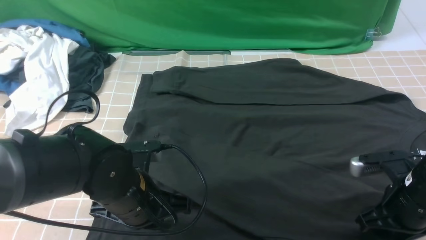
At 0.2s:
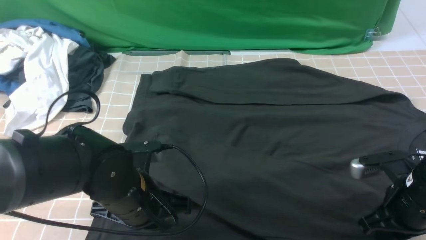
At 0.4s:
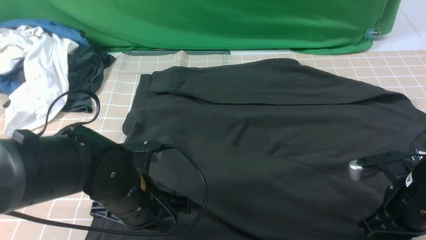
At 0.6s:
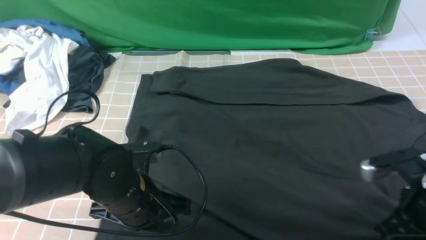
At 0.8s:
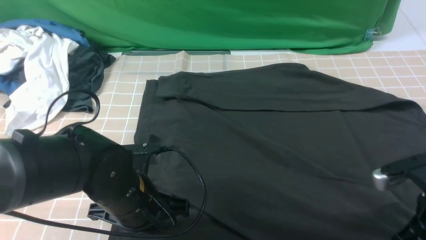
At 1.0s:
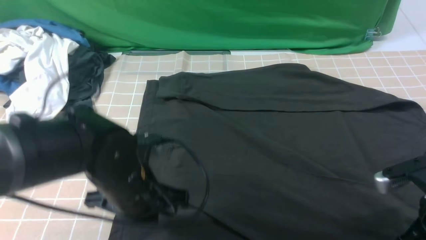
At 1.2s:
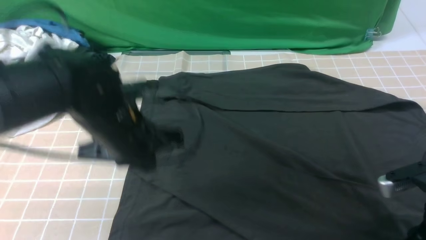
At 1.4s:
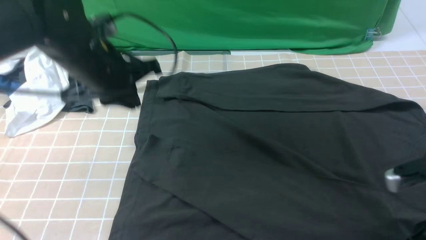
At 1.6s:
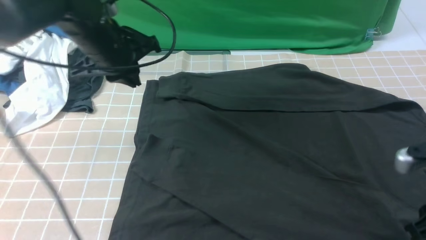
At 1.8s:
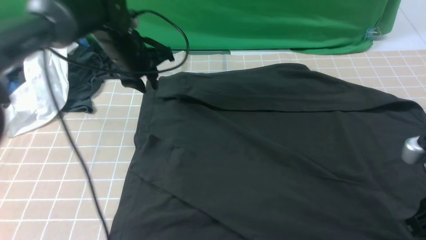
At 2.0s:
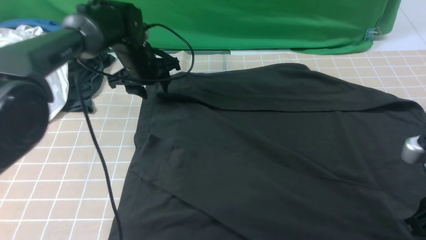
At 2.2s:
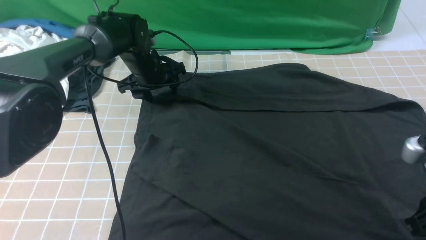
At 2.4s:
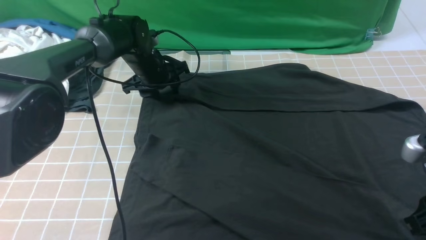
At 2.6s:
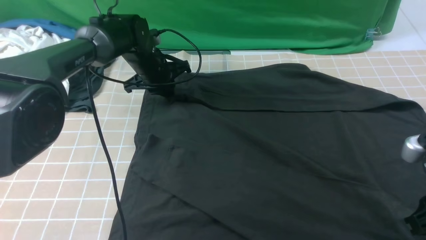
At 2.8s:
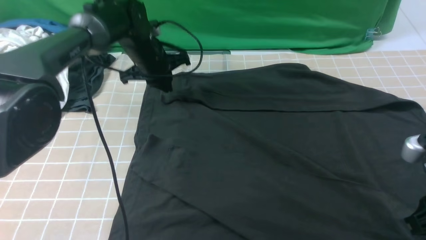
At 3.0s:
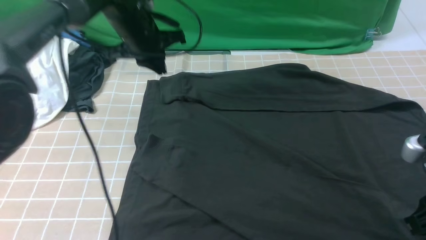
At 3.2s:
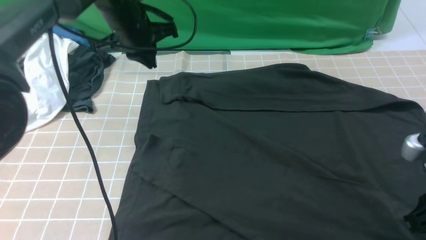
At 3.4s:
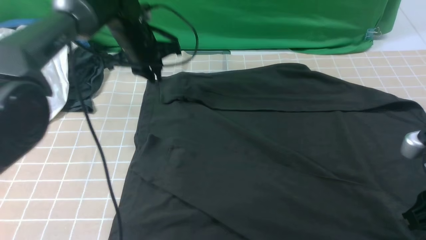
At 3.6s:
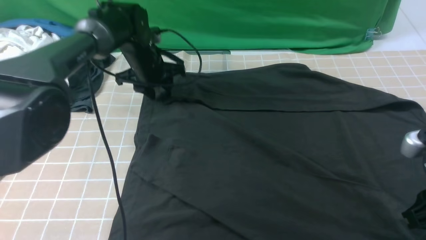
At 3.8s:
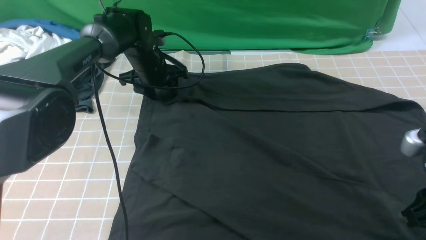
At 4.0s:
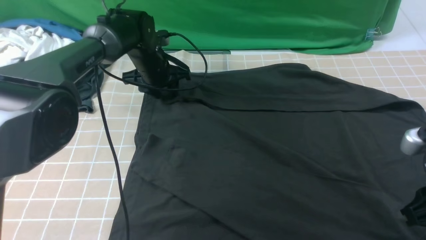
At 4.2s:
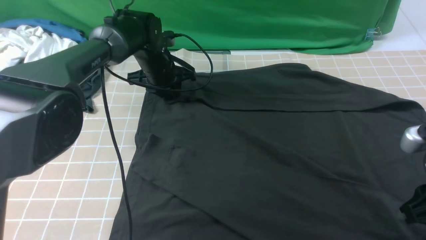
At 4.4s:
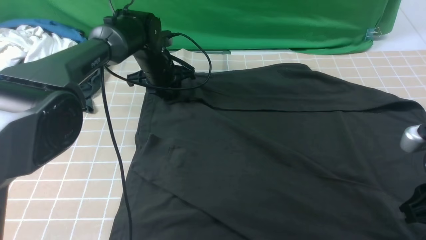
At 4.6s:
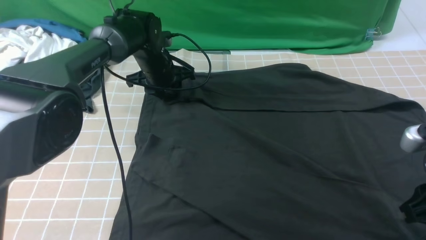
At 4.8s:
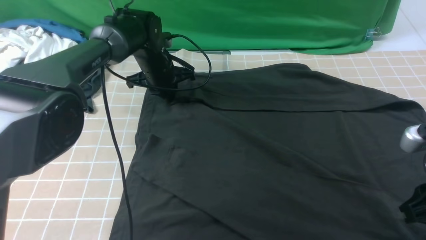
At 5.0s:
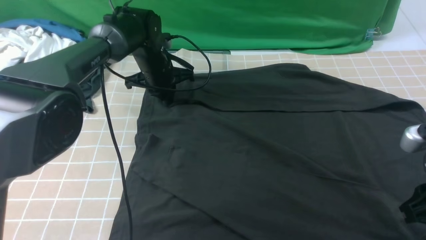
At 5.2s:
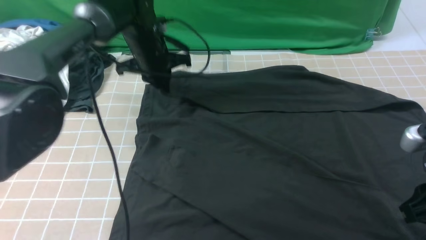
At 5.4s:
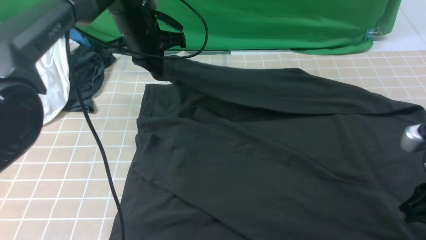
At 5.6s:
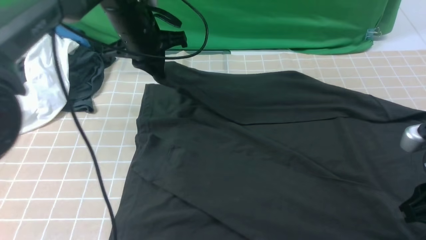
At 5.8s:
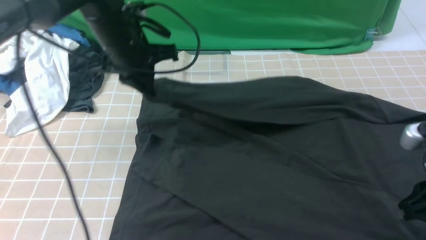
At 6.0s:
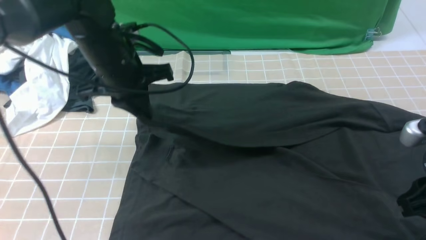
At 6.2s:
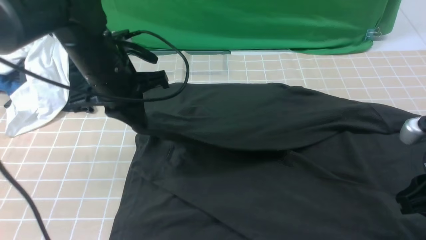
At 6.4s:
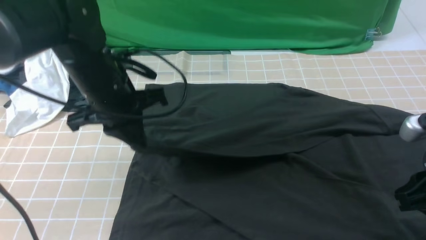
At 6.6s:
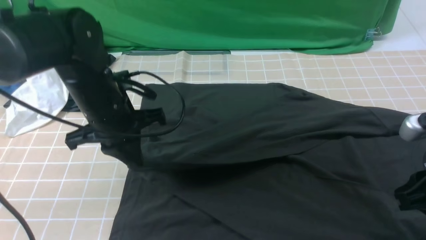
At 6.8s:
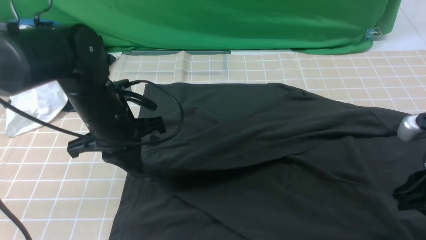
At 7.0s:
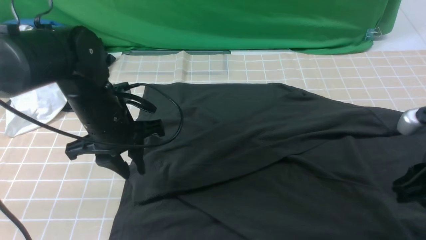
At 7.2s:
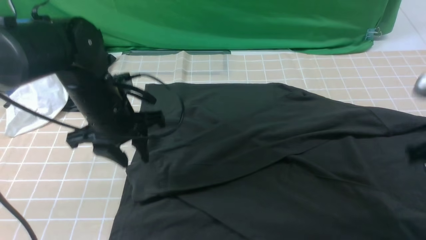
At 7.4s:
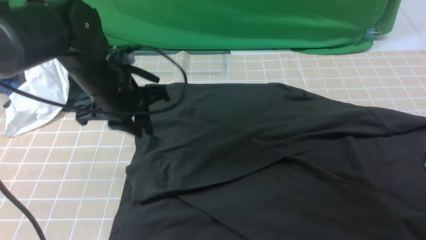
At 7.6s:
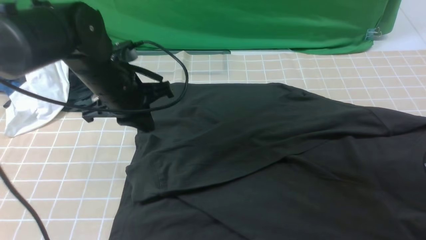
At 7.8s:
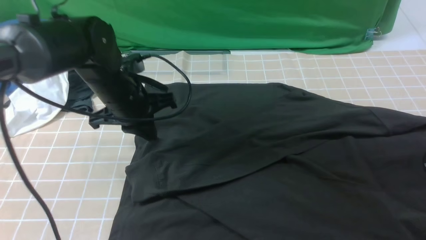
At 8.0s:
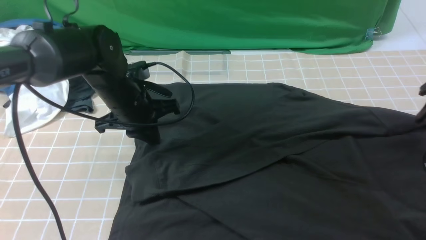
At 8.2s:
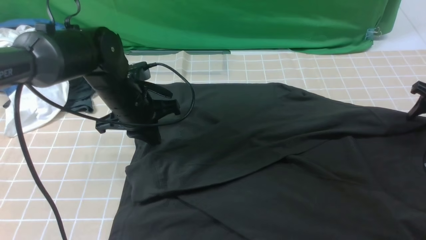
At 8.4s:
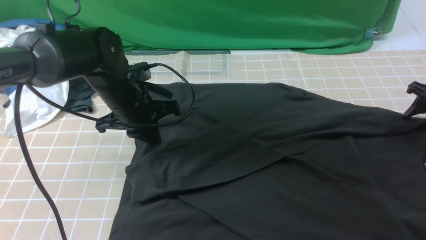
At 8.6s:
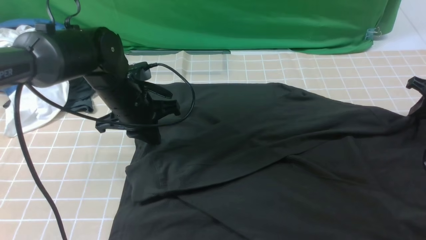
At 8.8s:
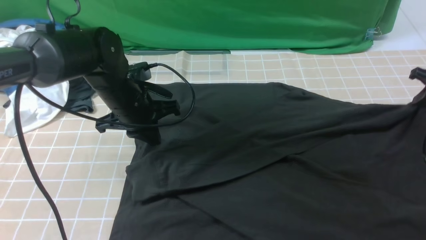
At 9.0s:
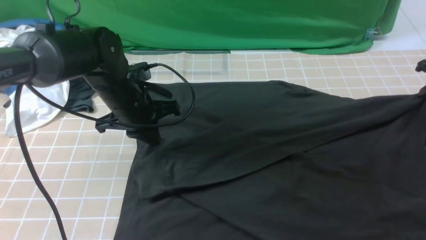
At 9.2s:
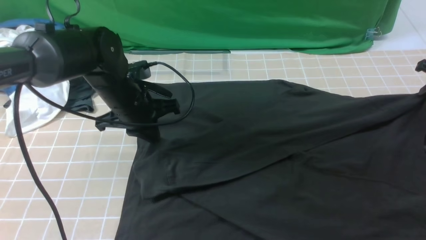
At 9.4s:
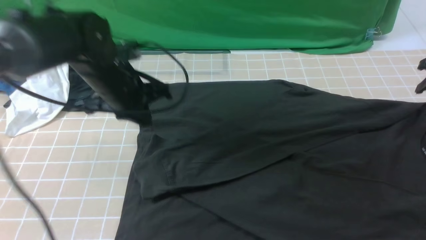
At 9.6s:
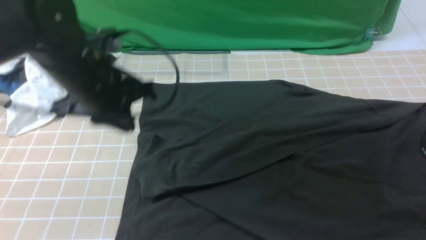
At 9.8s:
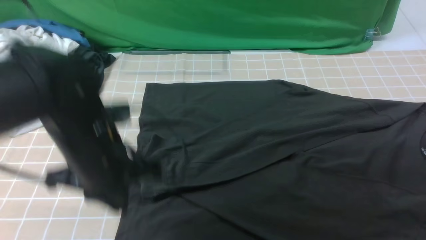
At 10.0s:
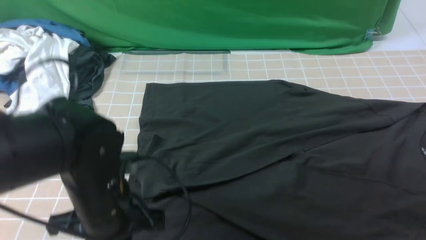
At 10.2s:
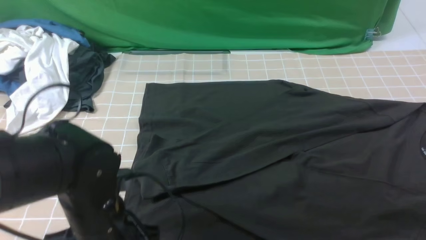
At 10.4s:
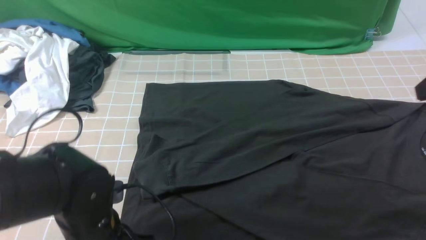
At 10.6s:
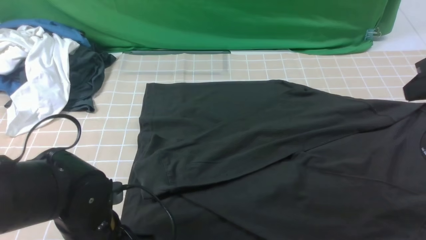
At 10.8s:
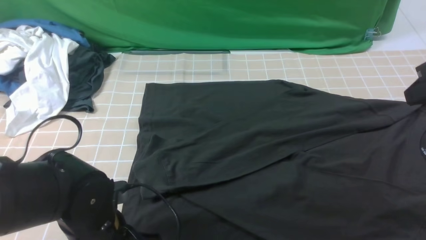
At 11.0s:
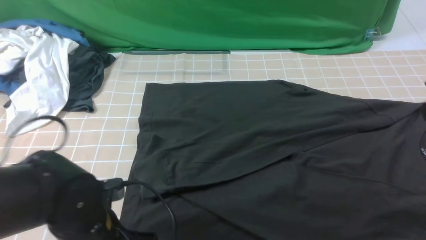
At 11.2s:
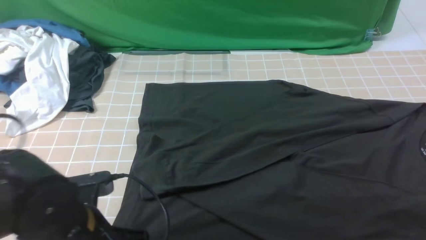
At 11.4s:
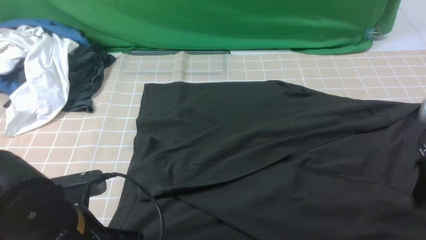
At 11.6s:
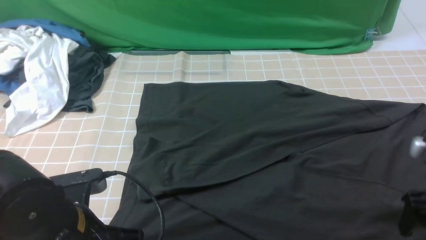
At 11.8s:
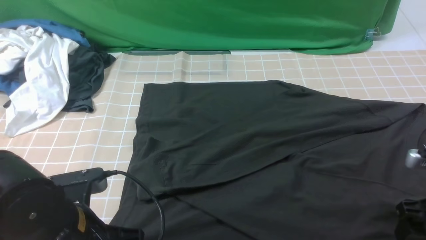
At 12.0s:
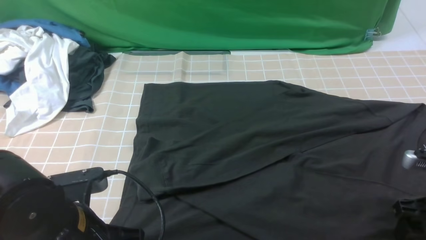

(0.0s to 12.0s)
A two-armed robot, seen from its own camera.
Step, 0.0s - 4.8s: use the left arm to clamp the cuff farthest from it.
Step, 5.0s - 6.8s: use the left arm to drag and drop the cuff onto the cuff closest to the left arm.
0.0s - 1.6s: The left gripper goes approximately 20 cm forward and upward, while the right gripper travels upward by some 10 cm, and closes, then opens again.
1.6s - 3.0s: The left gripper goes roughly 5 cm forward, moves about 10 cm downward and comes back, and opens and closes again.
3.0s - 4.4s: The left gripper travels downward by about 10 cm, and opens up.
4.4s - 6.0s: The left gripper goes approximately 20 cm backward and upward, and closes up.
6.0s - 7.6s: The left gripper opens, then closes once more, while the right gripper is displaced forward and to the right by some 20 cm.
7.6s - 9.0s: The right gripper heads forward, downward and to the right, covering roughly 15 cm, and opens and closes again.
9.0s - 10.4s: The left gripper goes approximately 20 cm backward, and opens. The right gripper moves upward, backward and to the left, roughly 25 cm.
10.4s - 12.0s: The right gripper is displaced downward by some 20 cm, and opens up; the left gripper shifts by about 5 cm, and closes its fingers.

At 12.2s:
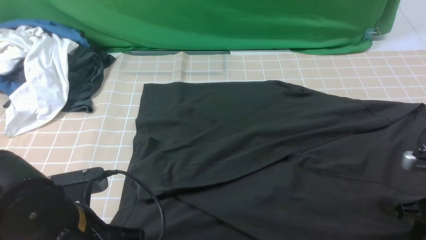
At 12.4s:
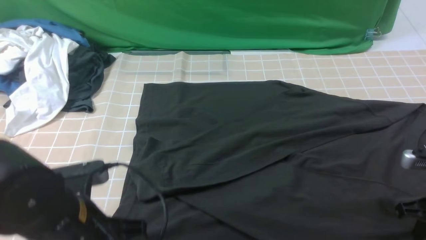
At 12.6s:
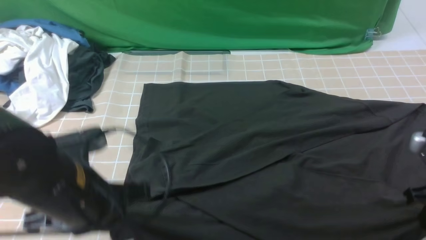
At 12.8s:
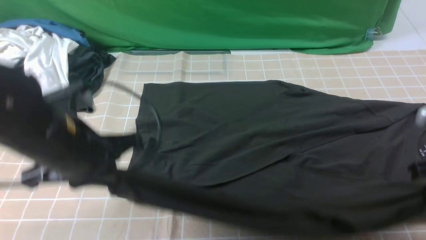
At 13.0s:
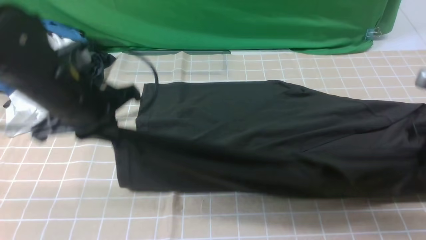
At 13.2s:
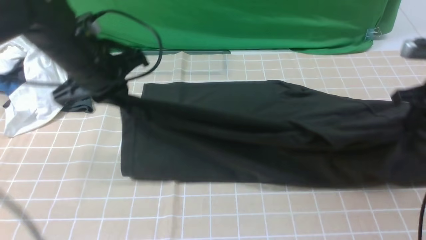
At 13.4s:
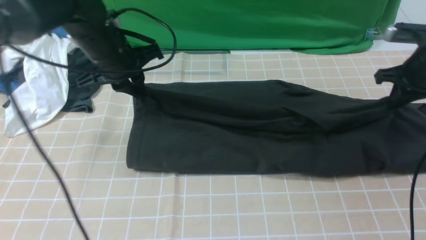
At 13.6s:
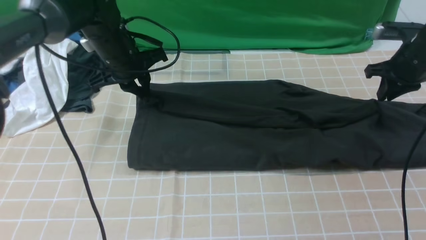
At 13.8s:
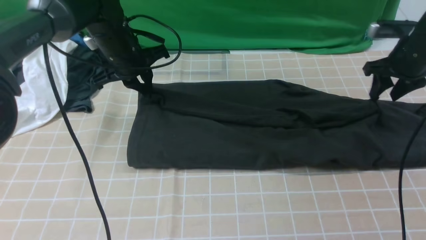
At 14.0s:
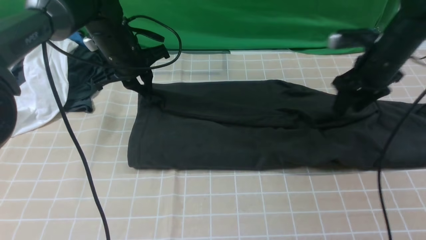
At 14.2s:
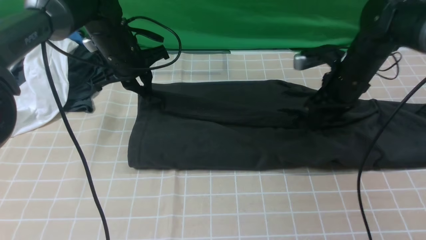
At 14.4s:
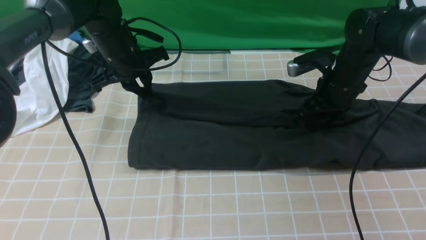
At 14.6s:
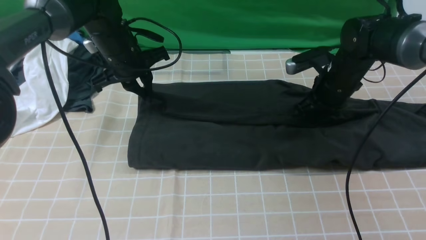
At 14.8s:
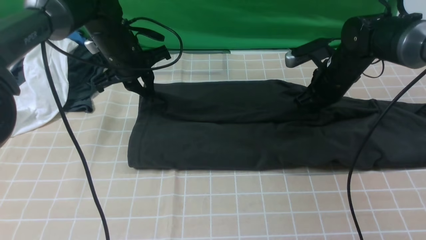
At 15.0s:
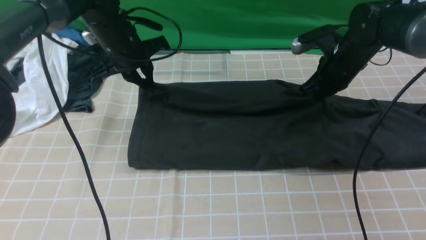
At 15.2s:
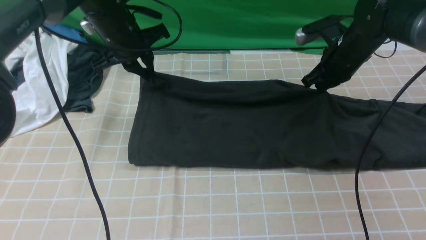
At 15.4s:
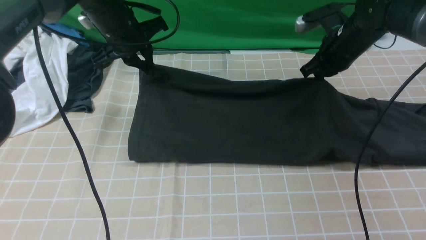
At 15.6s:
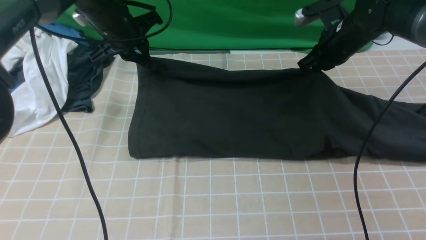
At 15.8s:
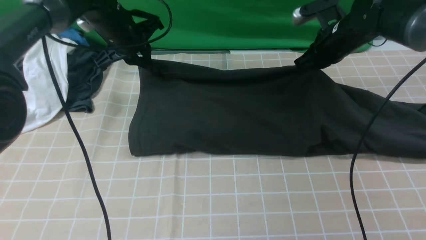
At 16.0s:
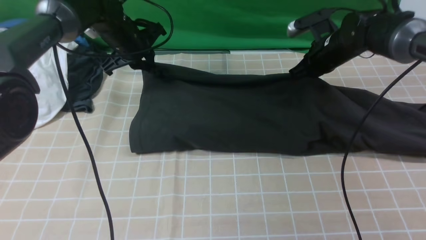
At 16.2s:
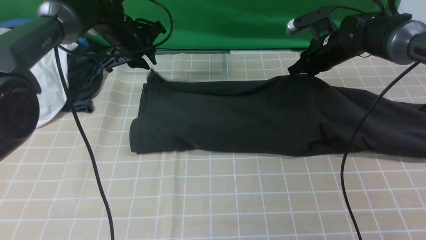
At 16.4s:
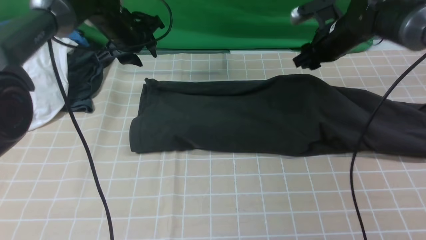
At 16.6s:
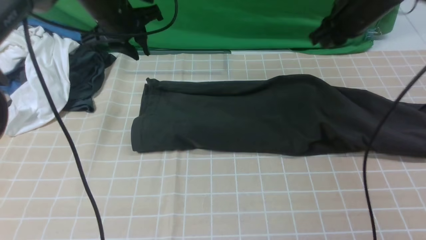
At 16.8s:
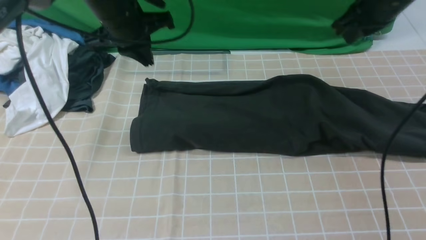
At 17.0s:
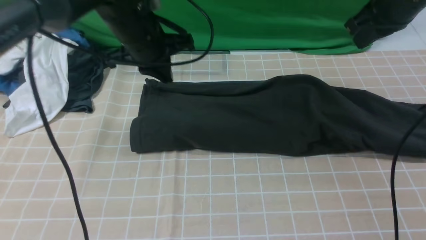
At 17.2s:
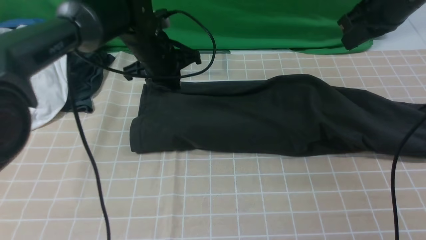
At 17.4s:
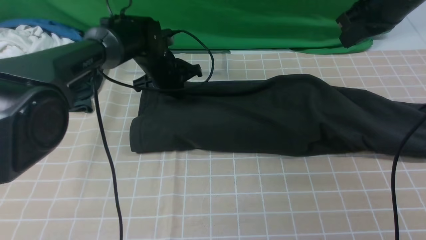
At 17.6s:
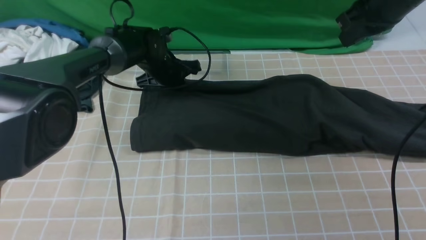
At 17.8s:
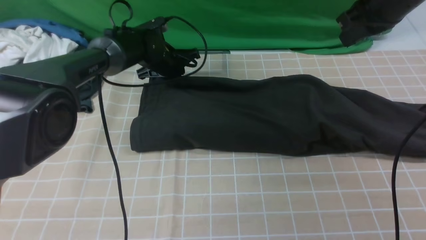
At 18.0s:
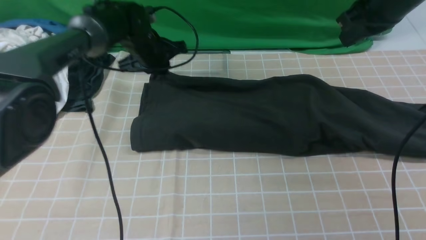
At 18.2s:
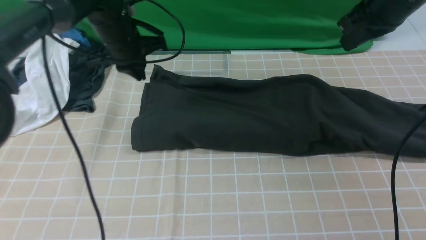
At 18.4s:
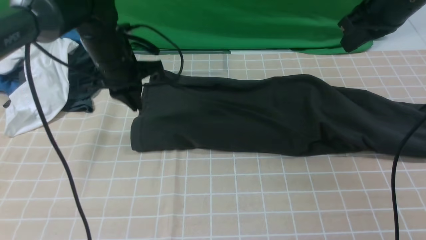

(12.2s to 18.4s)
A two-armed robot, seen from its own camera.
Step, 12.4s - 16.2s: use both arms to drag the lower edge of the fabric forward and fold it over the upper edge.
12.2s - 13.8s: The two grippers go some 25 cm forward. The right gripper closes and opens again.
13.8s - 15.4s: The right gripper goes roughly 10 cm to the left, and closes its fingers.
15.4s - 16.8s: The left gripper shifts by some 5 cm, and opens and closes again; the right gripper goes approximately 15 cm upward and backward, and opens, then closes again.
16.8s - 18.4s: The left gripper moves downward, some 5 cm.
